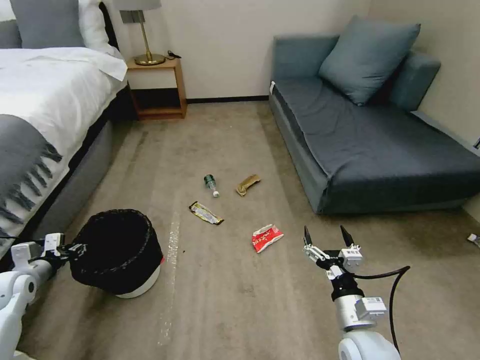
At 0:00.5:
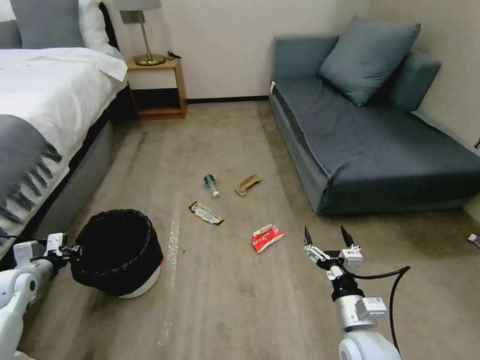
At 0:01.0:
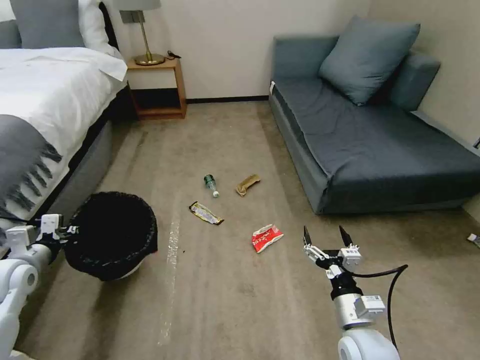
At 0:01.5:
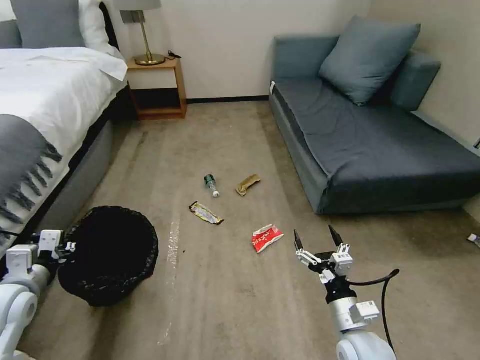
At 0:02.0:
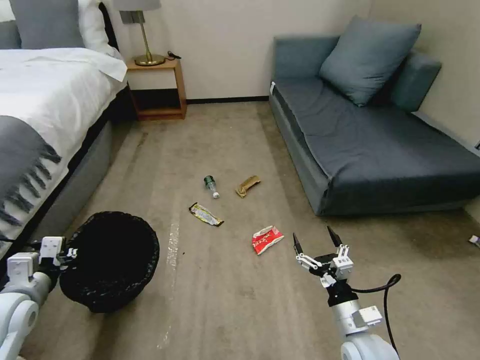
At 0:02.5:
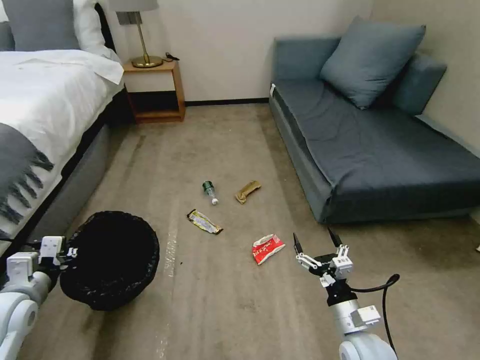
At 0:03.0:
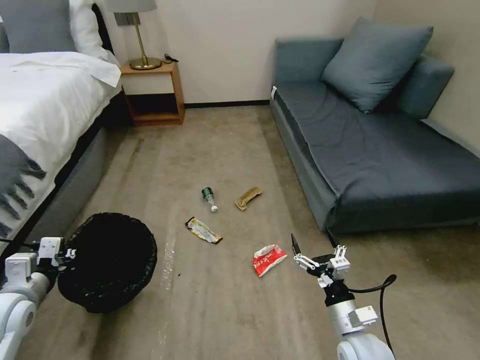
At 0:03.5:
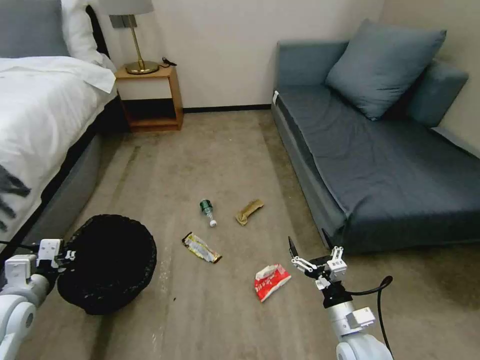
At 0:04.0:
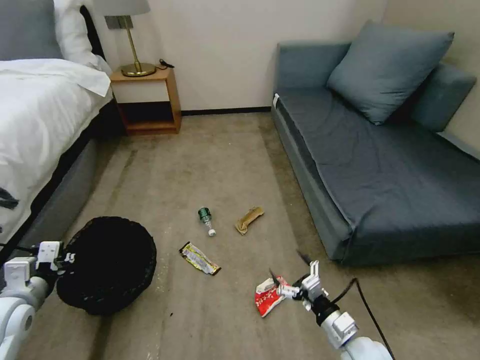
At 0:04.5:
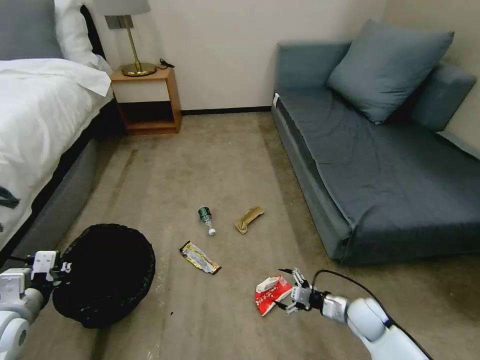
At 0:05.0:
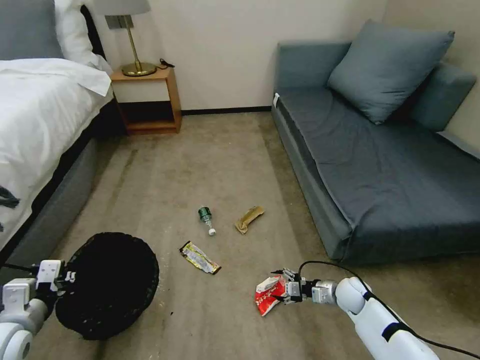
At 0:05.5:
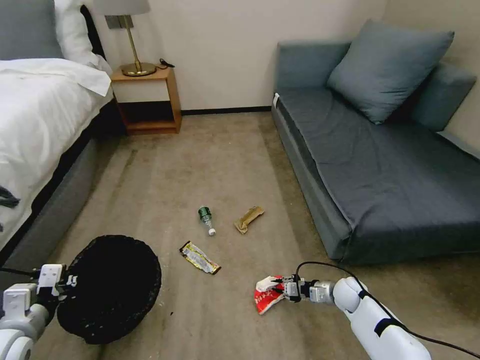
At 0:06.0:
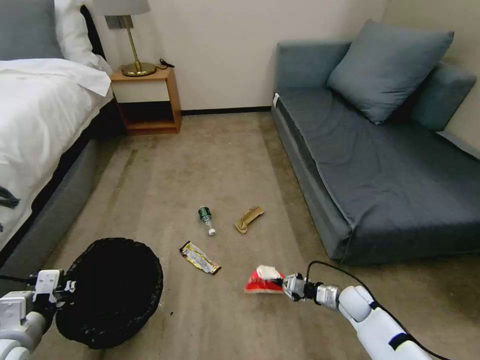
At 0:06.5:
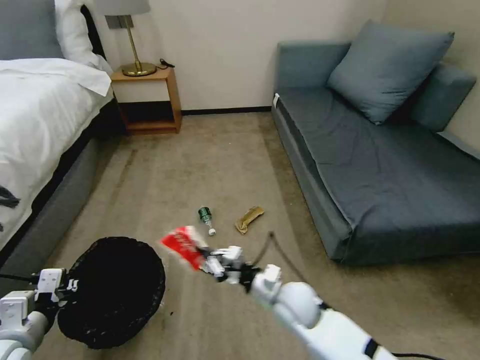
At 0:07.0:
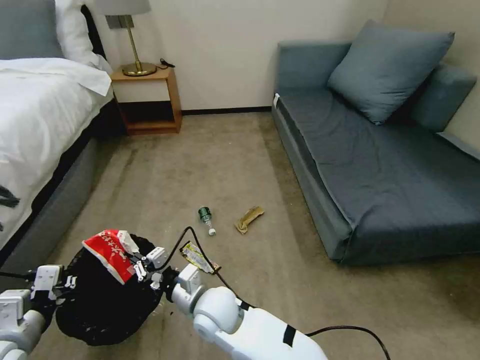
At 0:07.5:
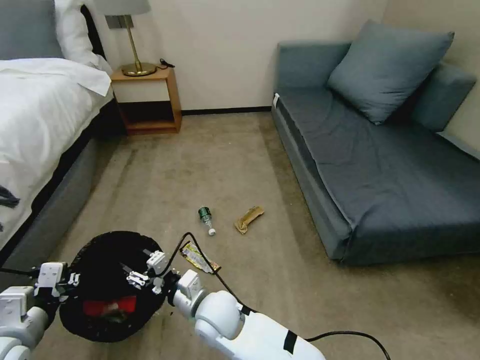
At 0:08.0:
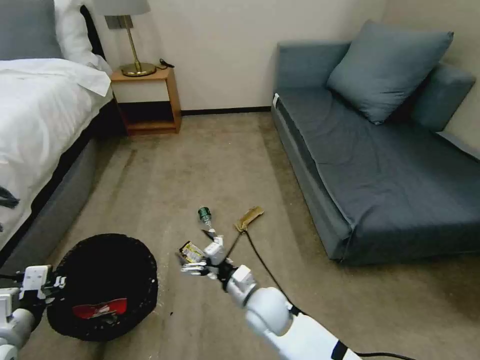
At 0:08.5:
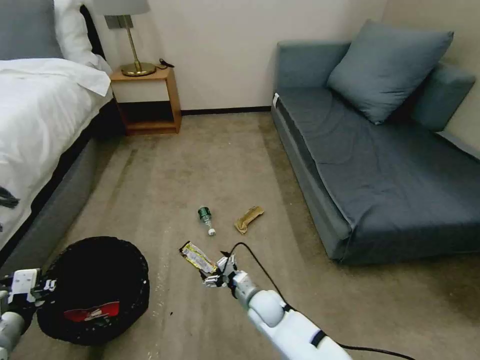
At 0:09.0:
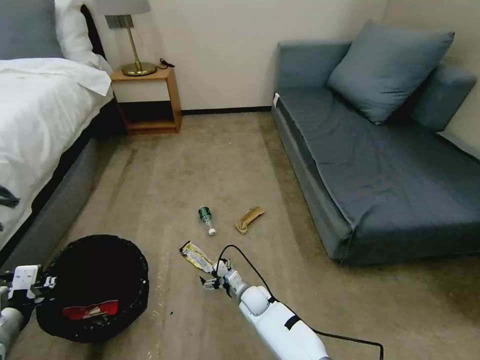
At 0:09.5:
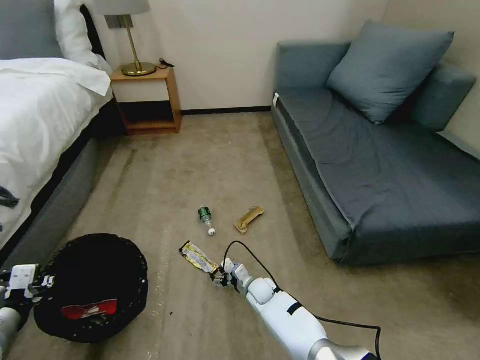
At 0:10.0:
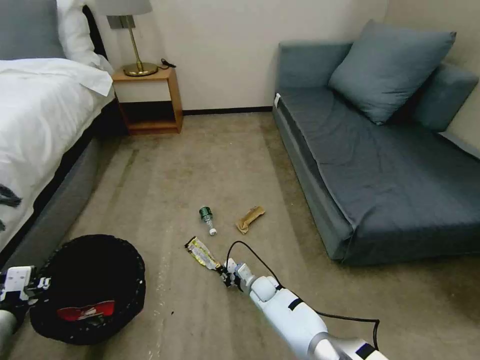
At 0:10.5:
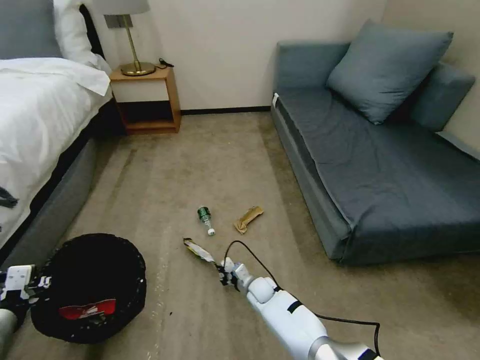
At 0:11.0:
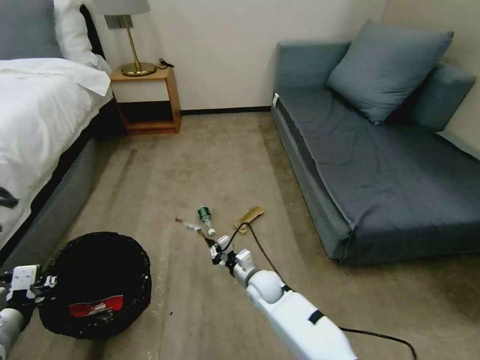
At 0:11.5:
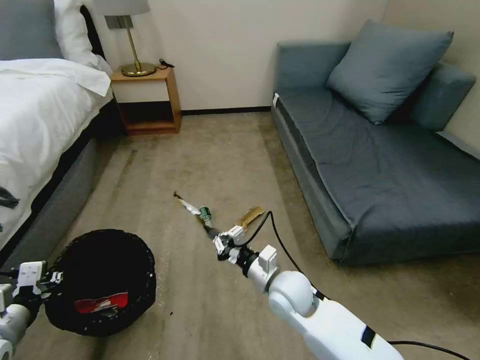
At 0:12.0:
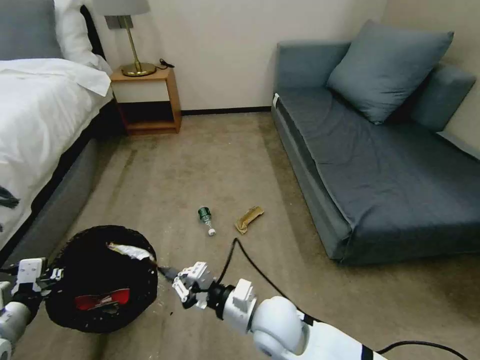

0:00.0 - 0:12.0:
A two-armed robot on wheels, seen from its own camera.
Task of the whole recording: Pick up the trash bin, then pick up the garbage on the floor and place it into the trash bin.
0:00.0 - 0:02.0: The left gripper goes about 15 cm to the right, upward and backward, and closes.
0:02.0 - 0:04.0: The right gripper ends up some 5 cm from where it was.
0:04.0 - 0:06.0: The right gripper shifts some 15 cm forward, downward and to the right, and closes its fingers. The left gripper goes approximately 5 cm backward.
0:06.0 - 0:08.0: The right gripper moves to the left and upward, some 30 cm, and opens its fingers.
0:08.0 - 0:10.0: The right gripper is displaced downward and forward by roughly 20 cm, and closes.
0:10.0 - 0:12.0: The right gripper goes about 30 cm upward and backward.

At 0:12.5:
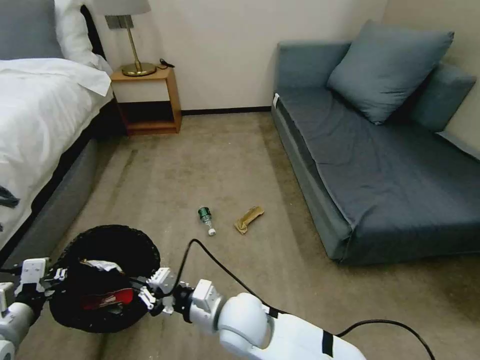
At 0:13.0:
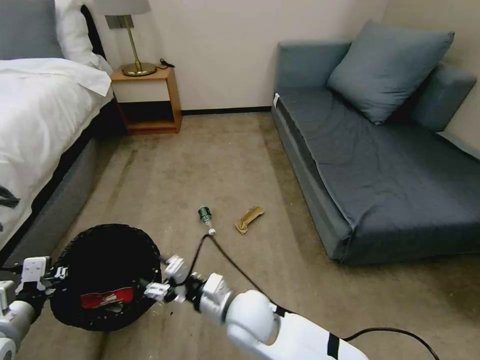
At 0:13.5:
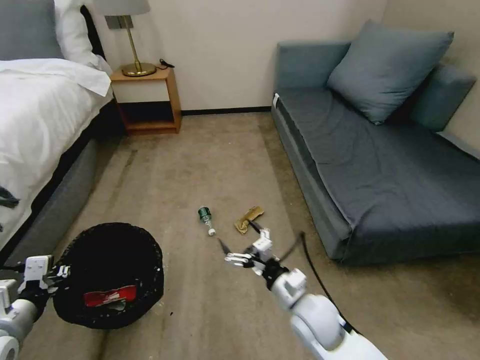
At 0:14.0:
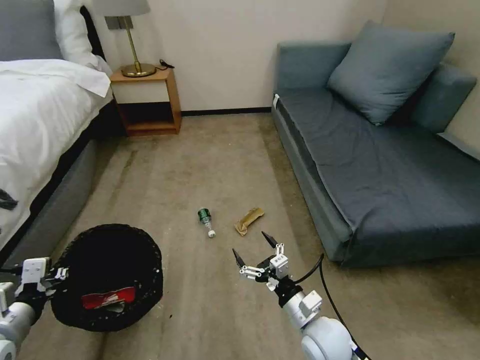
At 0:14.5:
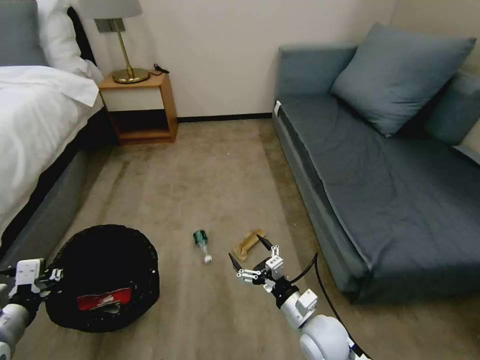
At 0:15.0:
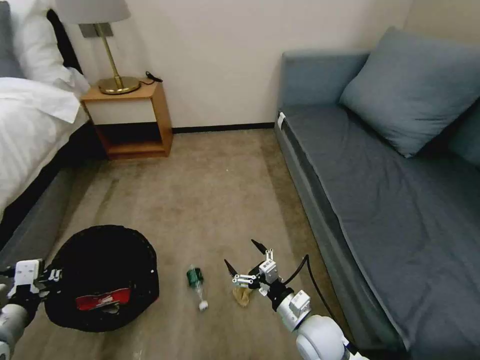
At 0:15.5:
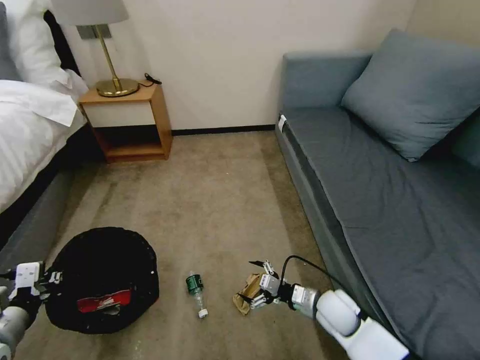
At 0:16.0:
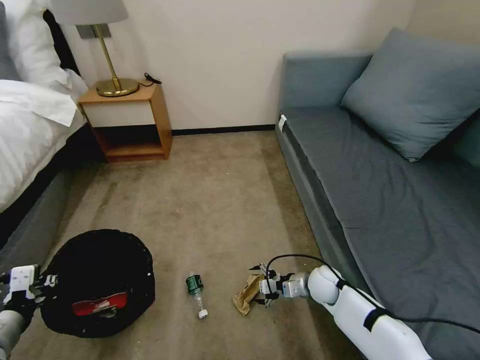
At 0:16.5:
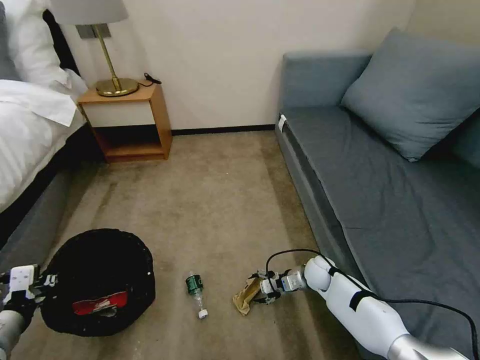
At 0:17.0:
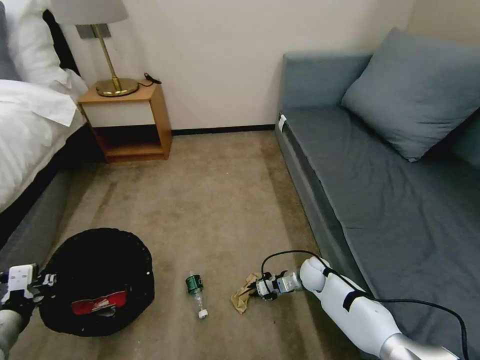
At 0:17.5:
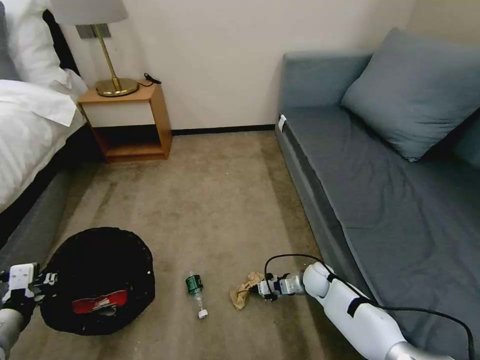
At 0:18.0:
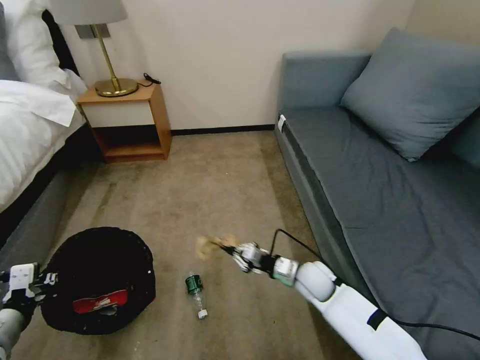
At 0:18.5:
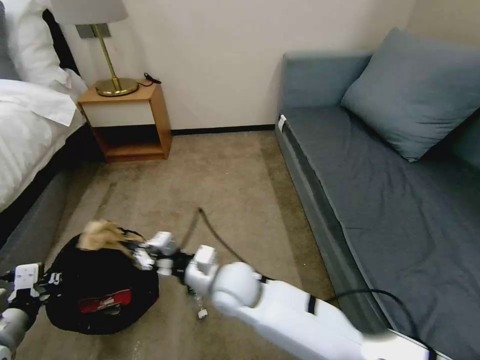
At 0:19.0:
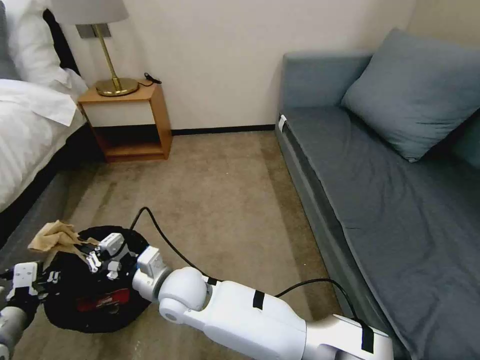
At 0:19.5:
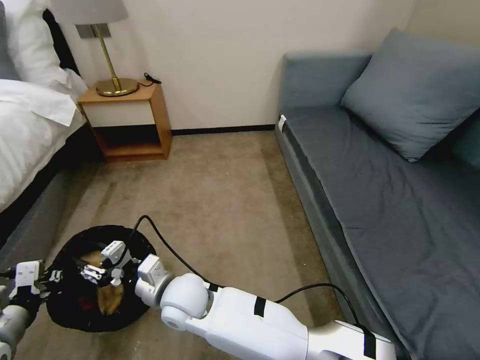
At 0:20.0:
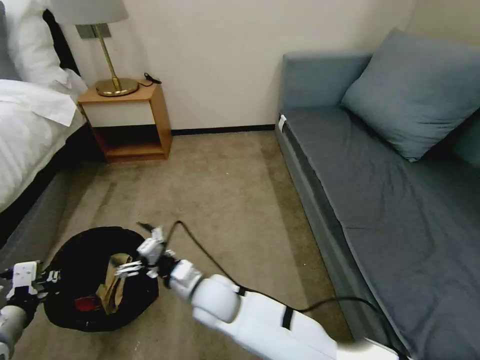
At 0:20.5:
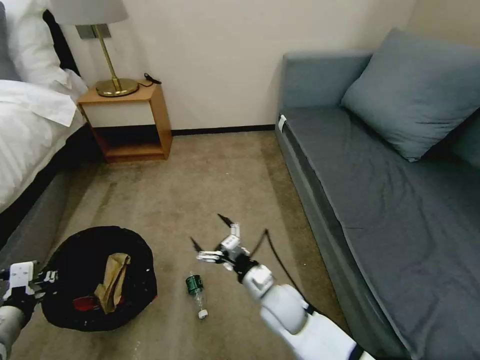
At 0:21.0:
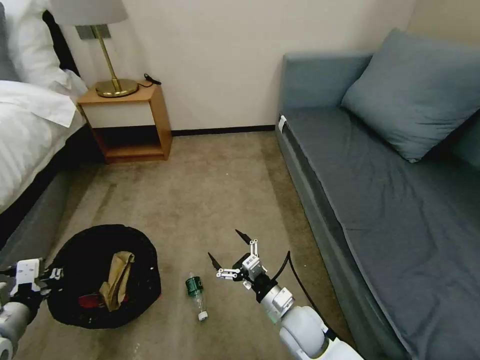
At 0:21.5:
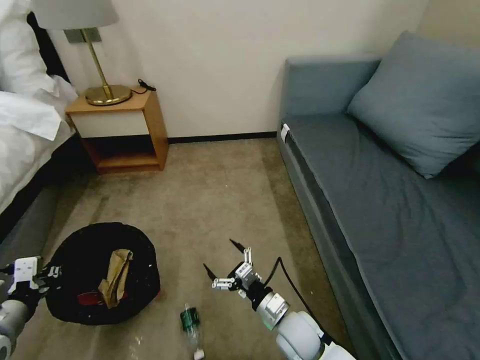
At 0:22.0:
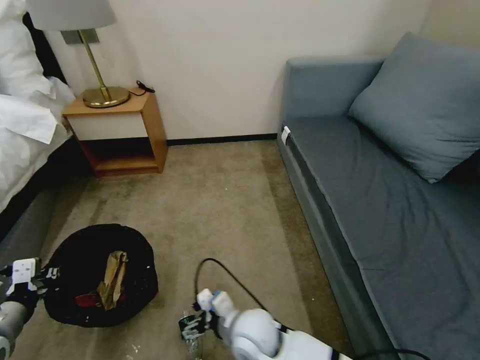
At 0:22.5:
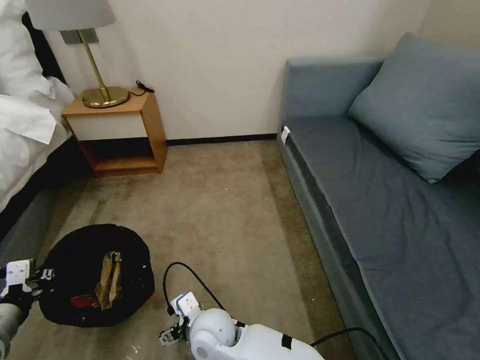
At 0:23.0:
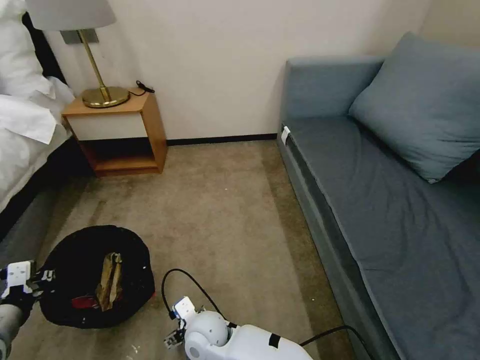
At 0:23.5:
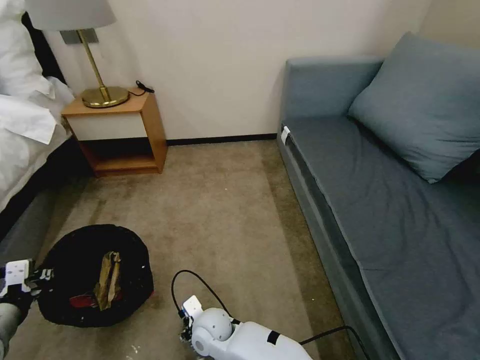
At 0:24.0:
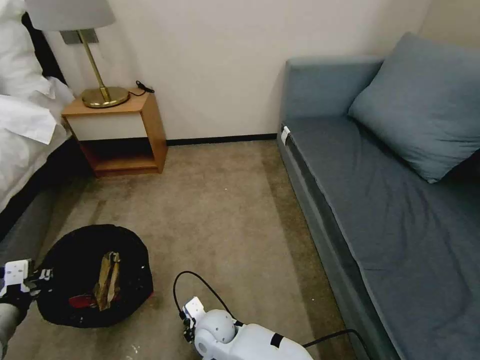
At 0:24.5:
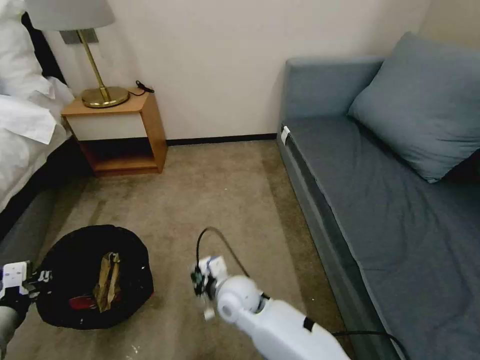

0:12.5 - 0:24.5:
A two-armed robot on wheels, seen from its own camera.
Task of the whole recording: Pick up the trash bin, then pick up the garbage on the floor and place it into the trash bin.
0:12.5 - 0:14.5: The right gripper goes some 20 cm to the right and downward, and opens its fingers.
0:14.5 - 0:16.5: The right gripper moves forward and downward, roughly 20 cm.
0:16.5 - 0:18.5: The right gripper moves to the left, upward and backward, some 35 cm, and closes.
0:18.5 - 0:20.5: The right gripper goes some 10 cm to the right and downward, and opens up.
0:20.5 - 0:22.5: The right gripper is displaced to the left by approximately 15 cm.
0:22.5 - 0:24.5: The right gripper is displaced forward and to the right by about 10 cm, moves about 10 cm downward and comes back, and closes.

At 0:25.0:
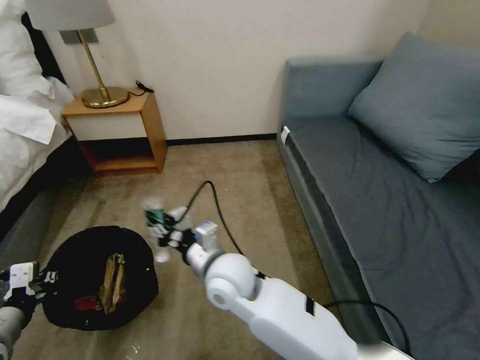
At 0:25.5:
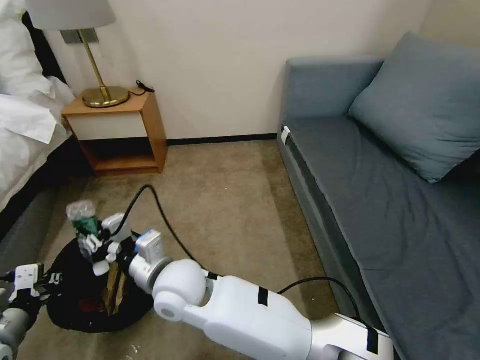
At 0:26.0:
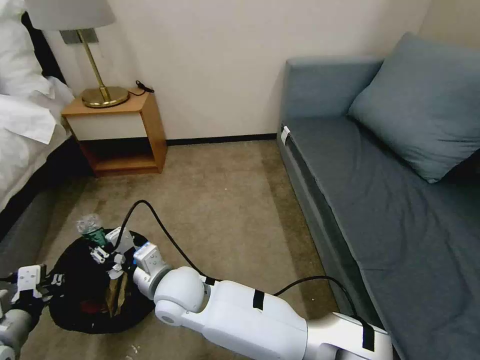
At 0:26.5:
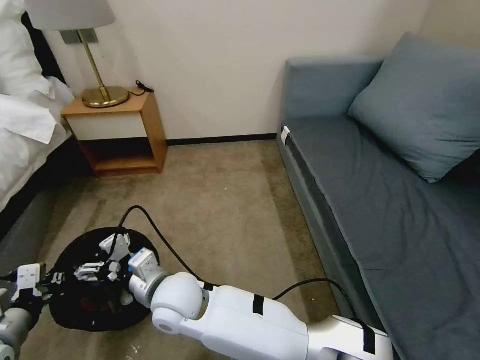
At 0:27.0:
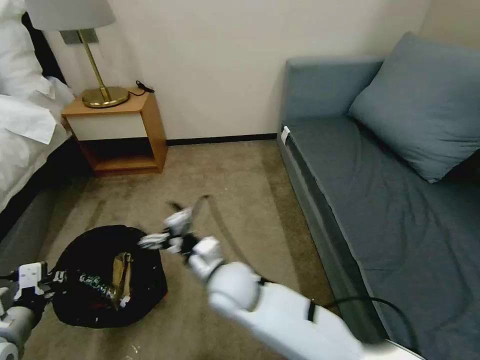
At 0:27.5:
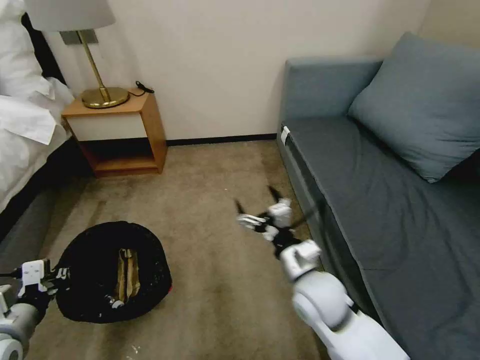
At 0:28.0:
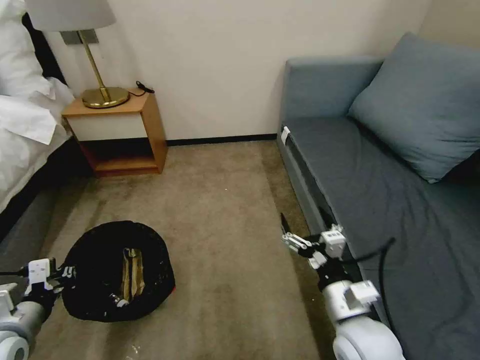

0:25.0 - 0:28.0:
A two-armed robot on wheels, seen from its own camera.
Task of the whole recording: Pick up the trash bin, then pick up the garbage on the floor and place it into the trash bin.
0:25.0 - 0:26.5: The right gripper moves to the left, roughly 10 cm, and opens up.
0:26.5 - 0:28.0: The right gripper travels to the right by about 35 cm.
